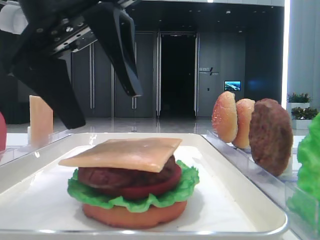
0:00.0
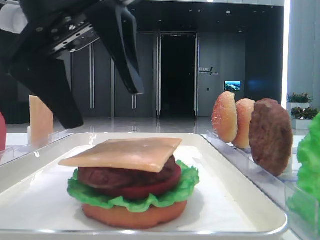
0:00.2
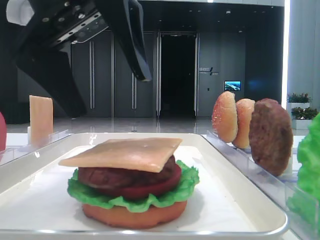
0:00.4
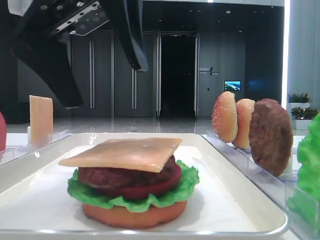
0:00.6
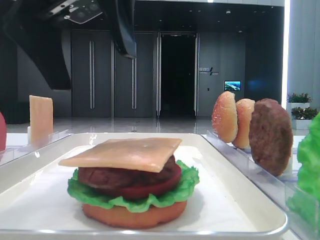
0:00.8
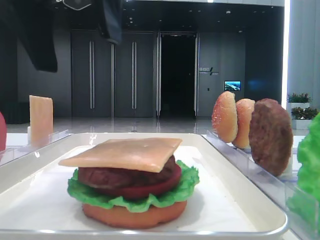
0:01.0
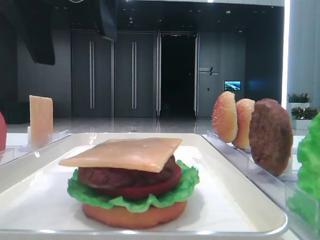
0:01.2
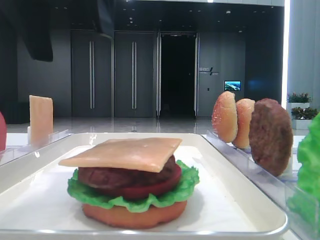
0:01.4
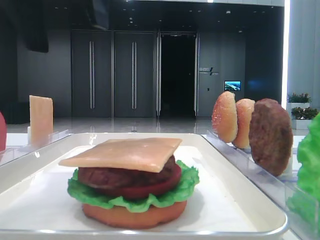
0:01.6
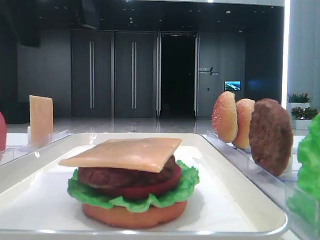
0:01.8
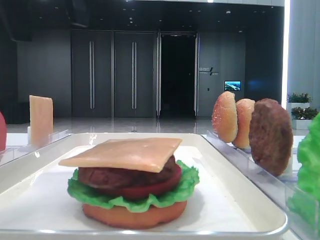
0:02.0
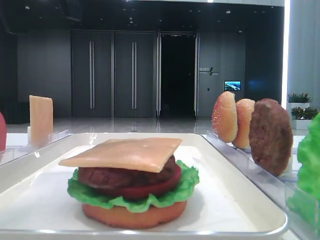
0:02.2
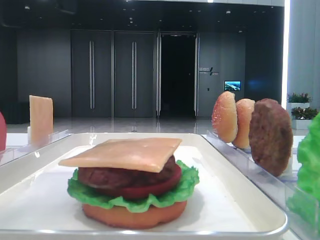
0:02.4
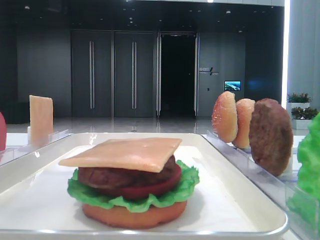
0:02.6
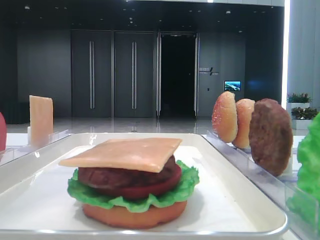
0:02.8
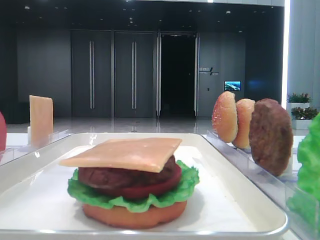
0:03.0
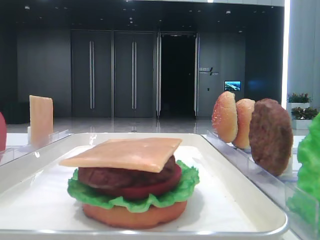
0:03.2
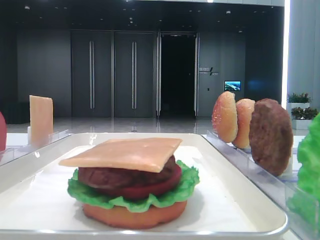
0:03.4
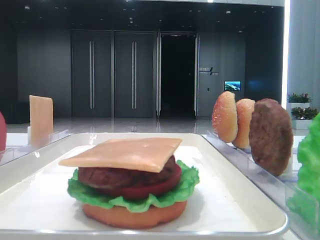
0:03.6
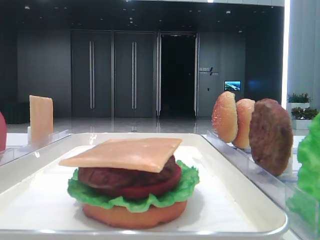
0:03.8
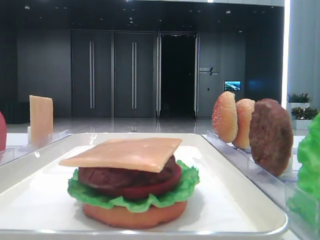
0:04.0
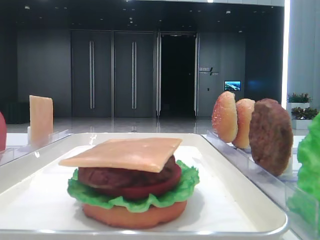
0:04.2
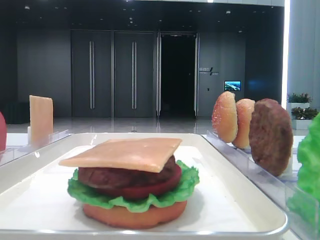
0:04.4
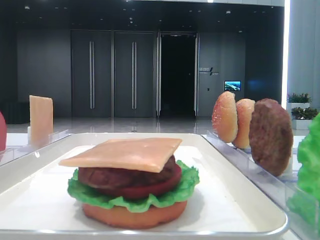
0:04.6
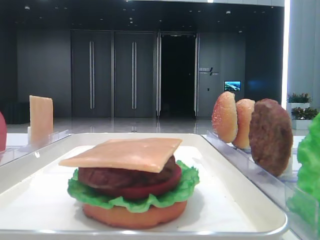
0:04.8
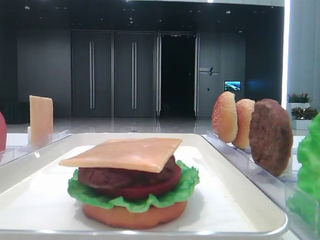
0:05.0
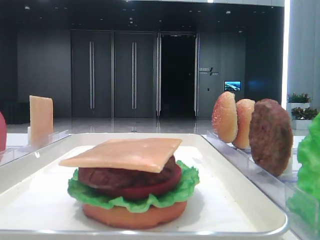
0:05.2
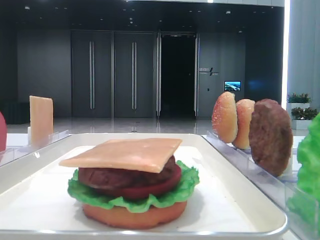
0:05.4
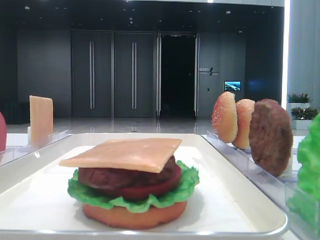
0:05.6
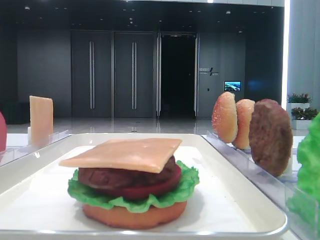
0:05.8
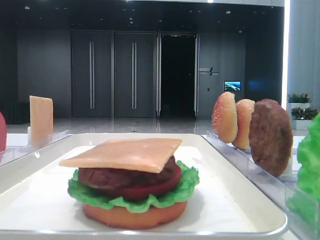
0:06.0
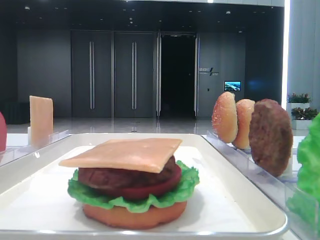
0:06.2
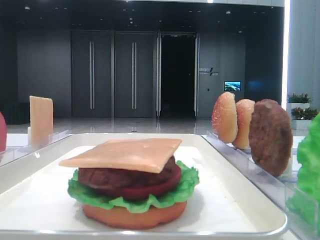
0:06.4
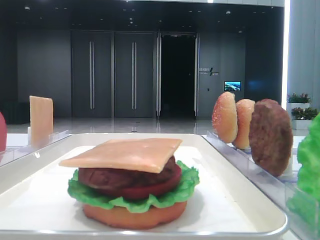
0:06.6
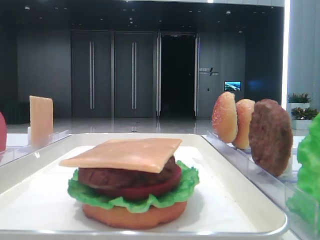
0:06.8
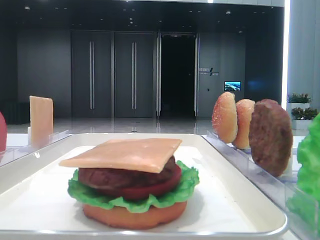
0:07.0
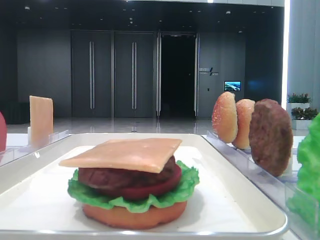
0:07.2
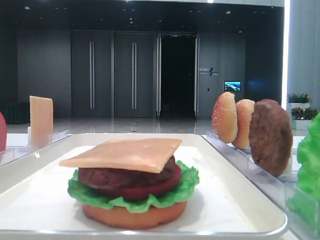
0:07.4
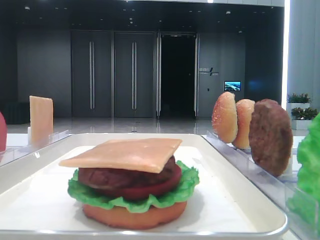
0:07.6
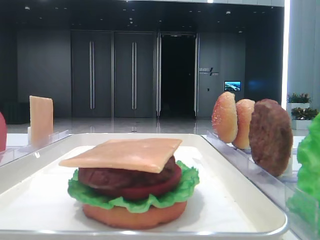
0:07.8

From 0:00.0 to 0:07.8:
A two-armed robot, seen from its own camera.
From 0:00.0 to 0:01.6: The left gripper heads upward, covering some 10 cm.
From 0:01.6 to 0:03.2: The left gripper shifts about 15 cm to the left and upward.
From 0:03.2 to 0:04.6: The left gripper moves to the left, some 10 cm.

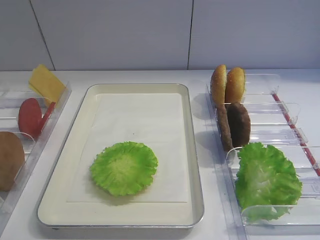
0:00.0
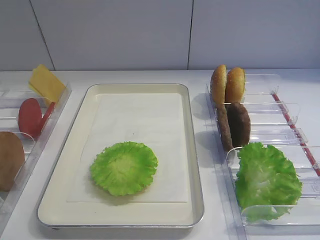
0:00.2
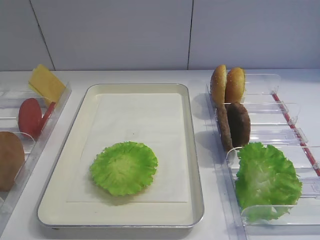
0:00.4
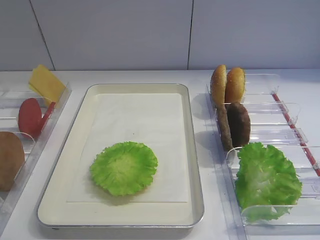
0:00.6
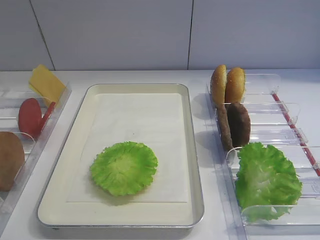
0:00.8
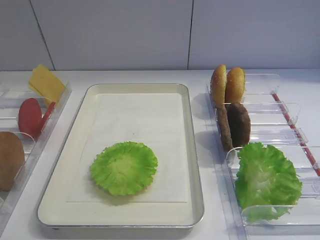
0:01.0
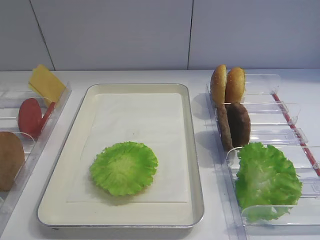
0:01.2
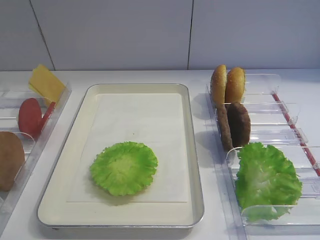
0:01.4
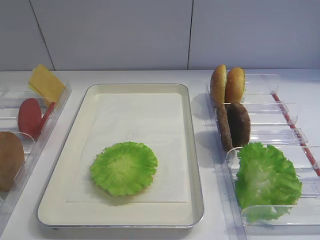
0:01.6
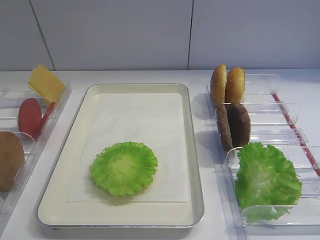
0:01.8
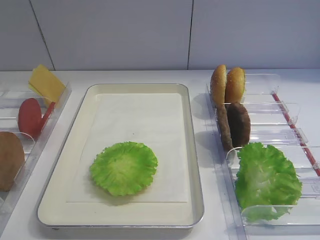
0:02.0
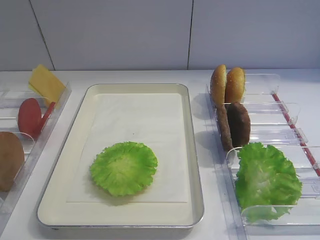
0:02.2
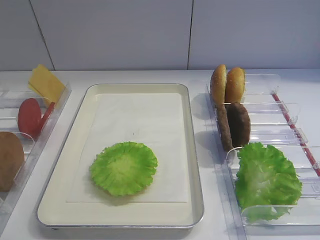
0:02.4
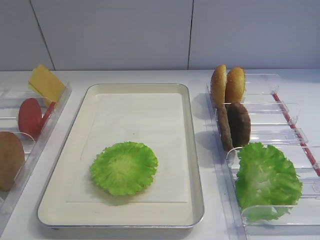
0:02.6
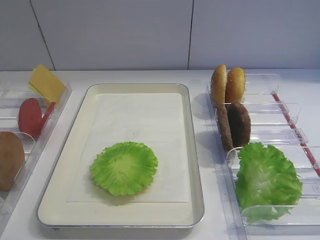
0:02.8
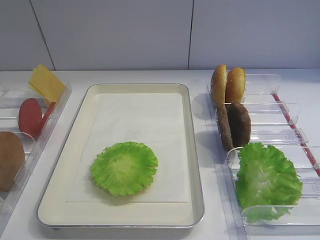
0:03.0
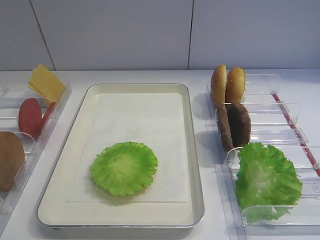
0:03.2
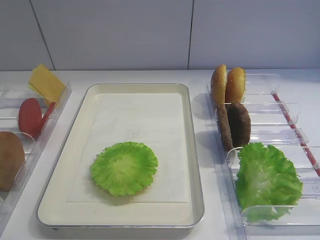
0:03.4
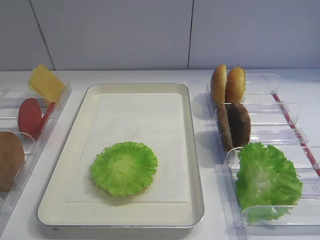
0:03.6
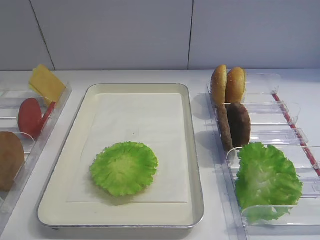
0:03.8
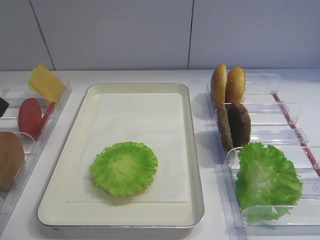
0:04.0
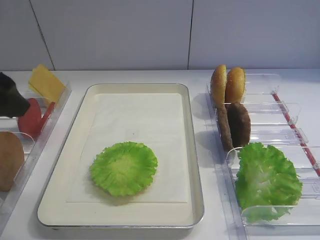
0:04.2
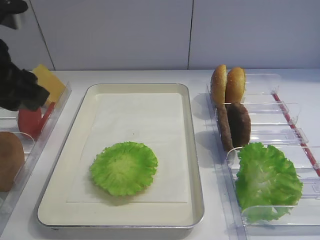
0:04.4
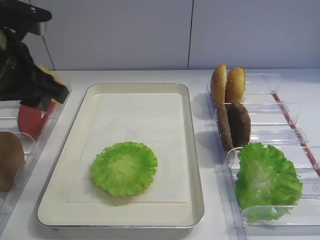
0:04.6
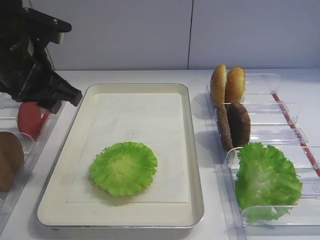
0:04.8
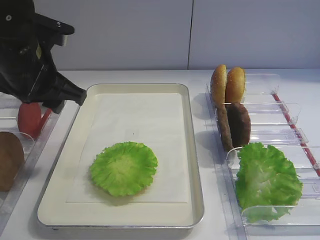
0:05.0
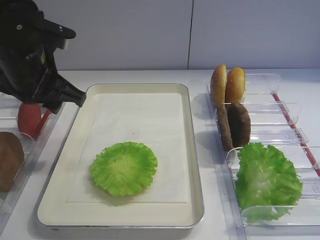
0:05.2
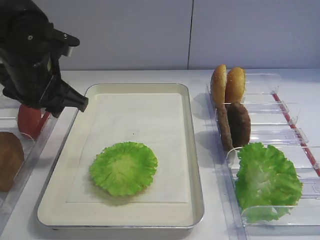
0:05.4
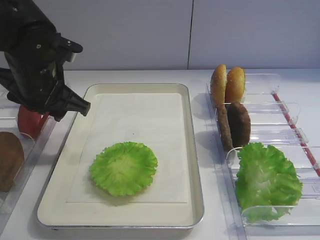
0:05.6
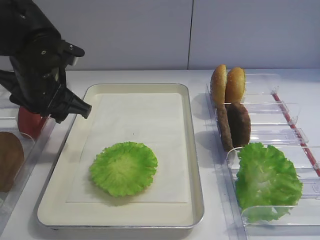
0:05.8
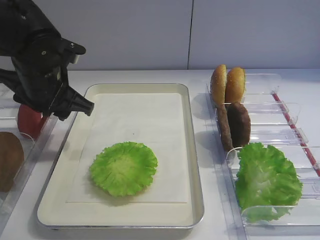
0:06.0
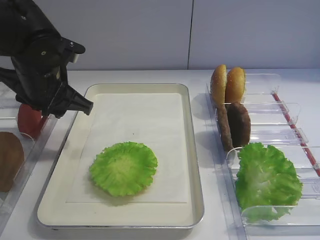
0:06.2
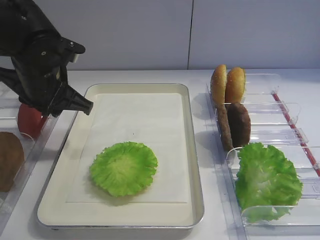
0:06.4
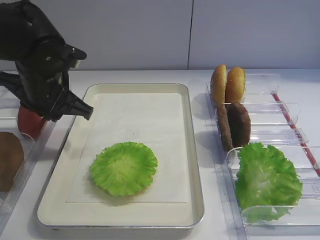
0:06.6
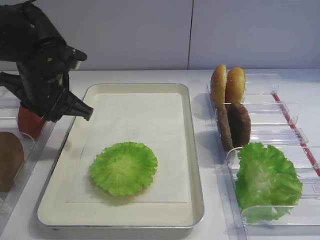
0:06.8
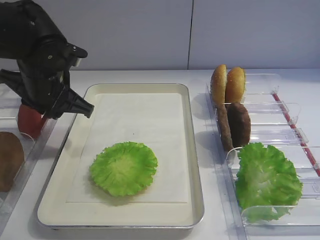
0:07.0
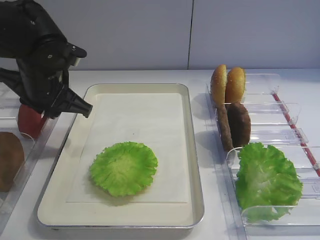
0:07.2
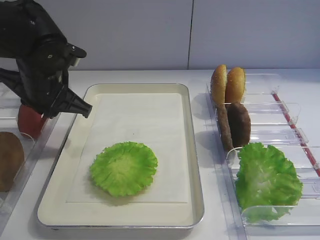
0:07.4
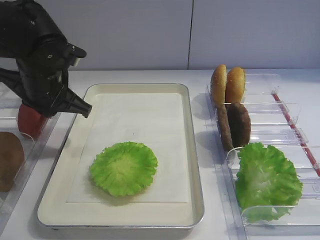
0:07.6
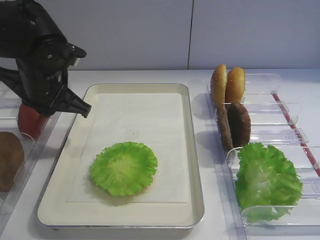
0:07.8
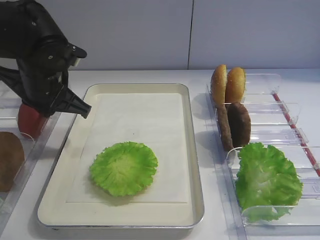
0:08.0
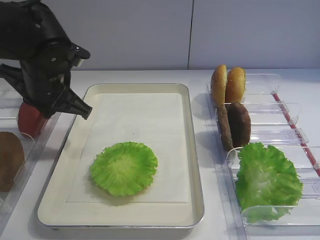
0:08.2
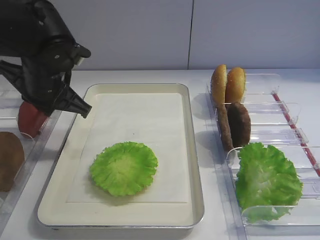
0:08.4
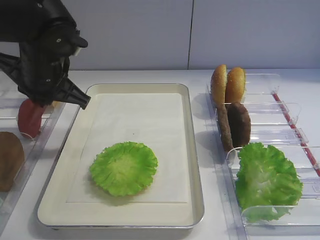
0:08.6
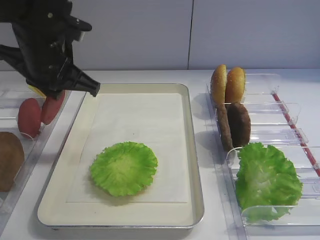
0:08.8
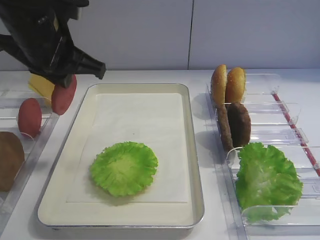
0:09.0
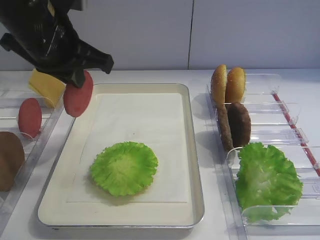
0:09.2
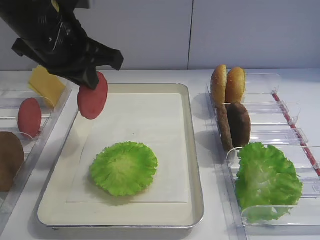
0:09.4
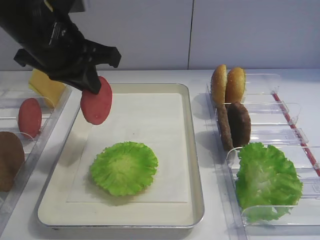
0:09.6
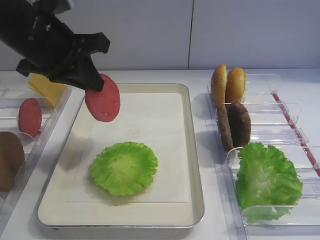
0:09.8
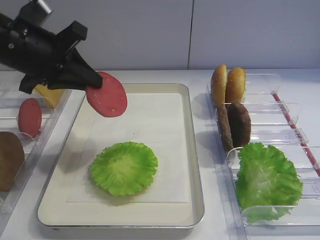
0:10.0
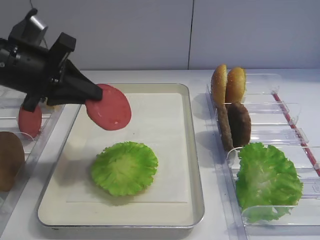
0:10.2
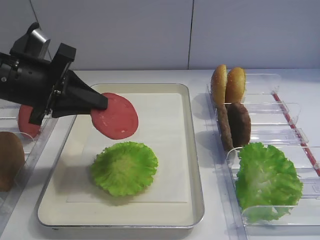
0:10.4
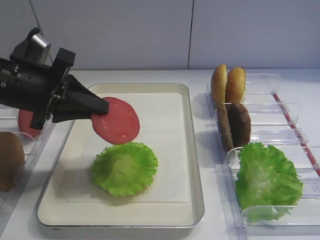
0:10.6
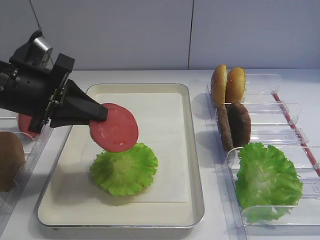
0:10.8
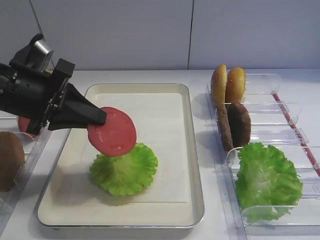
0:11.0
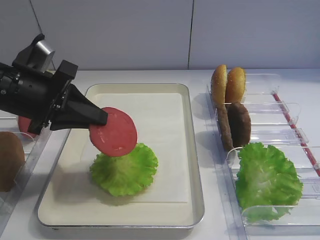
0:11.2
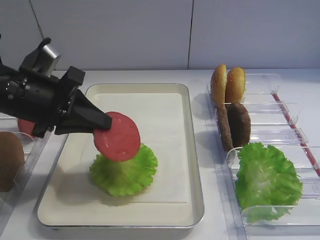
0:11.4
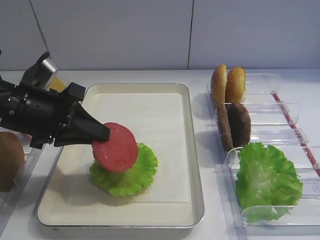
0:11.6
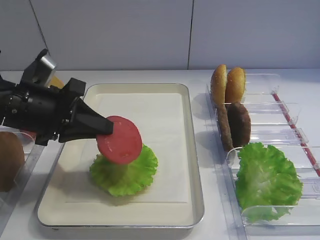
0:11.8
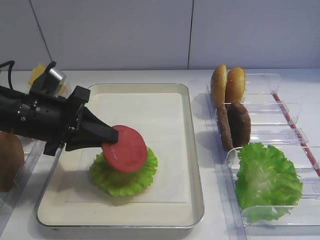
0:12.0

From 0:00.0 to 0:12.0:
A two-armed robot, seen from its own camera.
Step, from 0:00.0 to 0:09.0: Pick up the tomato slice with the left gripper.
From 0:03.0 to 0:04.4: The left gripper travels forward by roughly 20 cm.
From 0:04.4 to 0:06.0: The left gripper moves forward and downward, approximately 10 cm.
From 0:06.0 to 0:07.6: The left gripper closes.
From 0:07.6 to 0:09.0: The left gripper moves upward, about 10 cm.
From 0:09.0 to 0:10.4: The left gripper heads downward, covering approximately 5 cm.
From 0:10.4 to 0:12.0: The left gripper shifts approximately 5 cm downward.

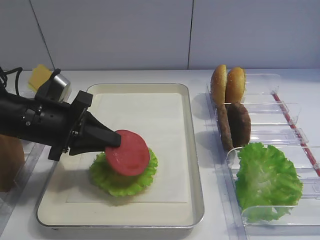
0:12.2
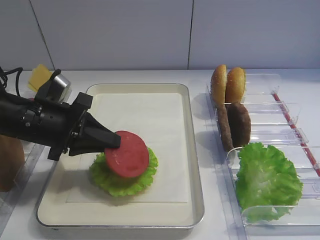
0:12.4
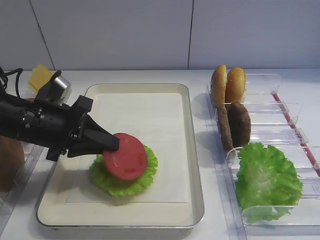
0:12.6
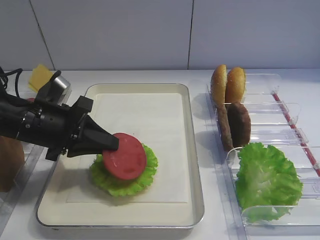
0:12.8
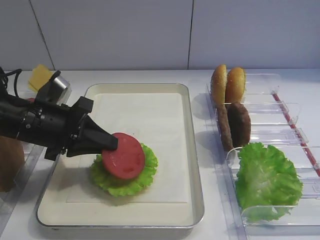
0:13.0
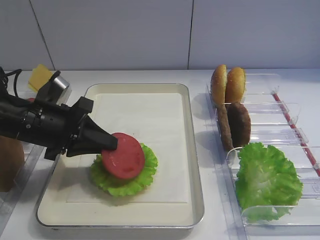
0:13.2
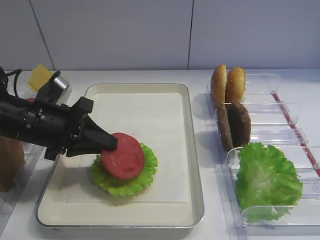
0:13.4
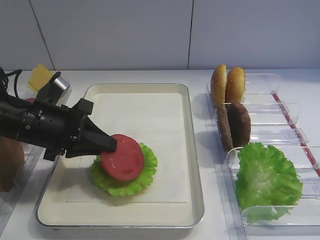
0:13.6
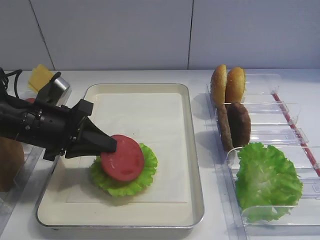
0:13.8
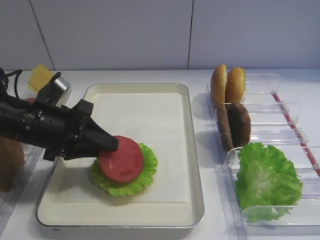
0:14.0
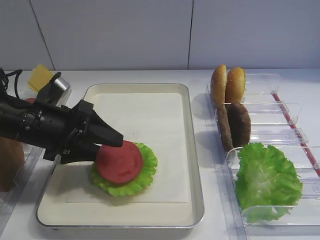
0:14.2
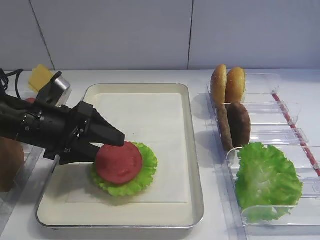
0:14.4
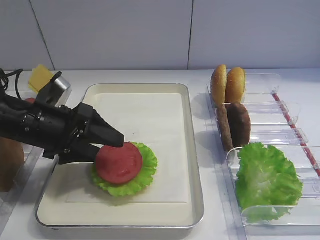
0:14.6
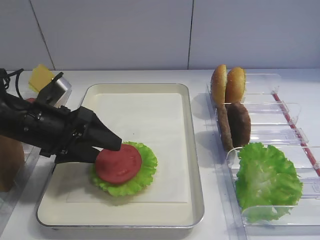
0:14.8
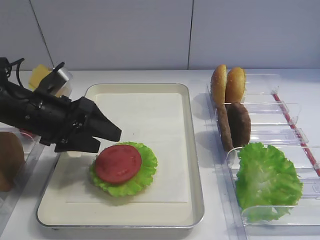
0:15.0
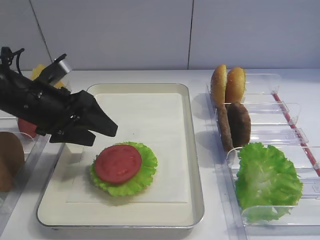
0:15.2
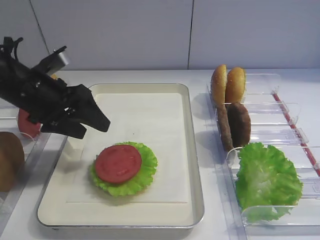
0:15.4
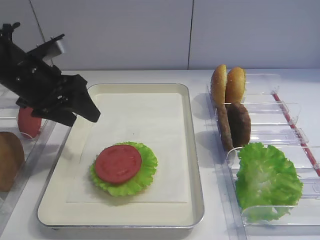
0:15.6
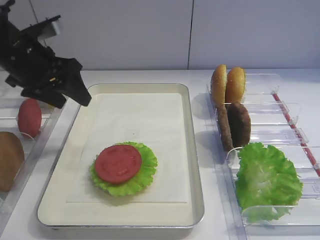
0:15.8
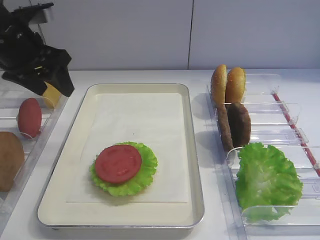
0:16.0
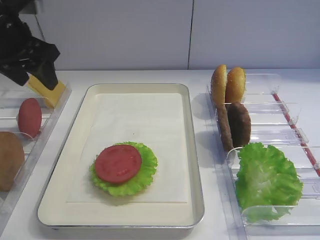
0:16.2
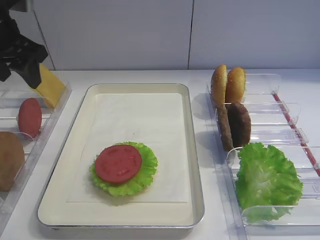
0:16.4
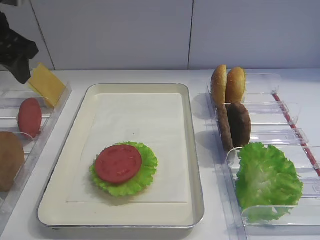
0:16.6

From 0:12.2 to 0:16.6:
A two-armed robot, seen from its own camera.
Step, from 0:12.2 to 0:15.4: Place the tomato slice on the lettuce leaf with the left gripper.
From 0:12.2 to 0:13.6: Both grippers stay put.
From 0:13.6 to 0:15.2: The left gripper opens its fingers.
From 0:15.2 to 0:16.6: The left gripper is displaced upward and to the left by roughly 15 cm.
